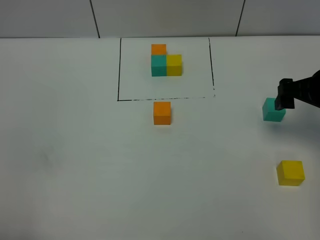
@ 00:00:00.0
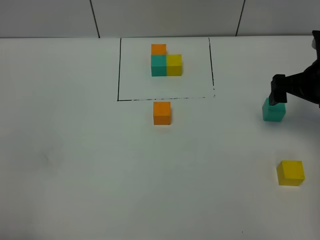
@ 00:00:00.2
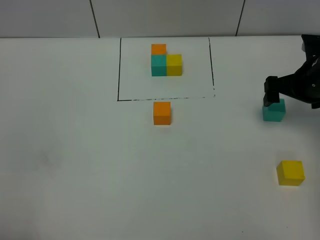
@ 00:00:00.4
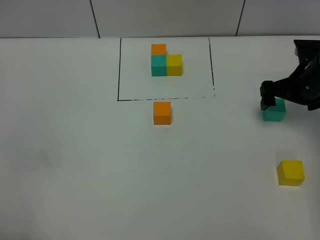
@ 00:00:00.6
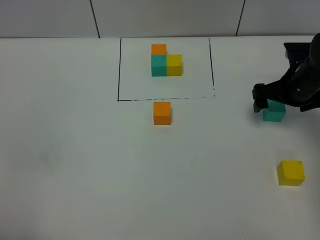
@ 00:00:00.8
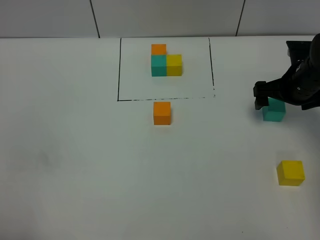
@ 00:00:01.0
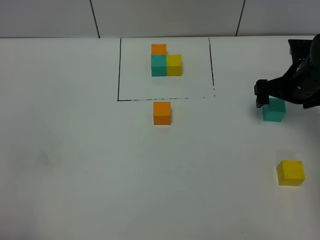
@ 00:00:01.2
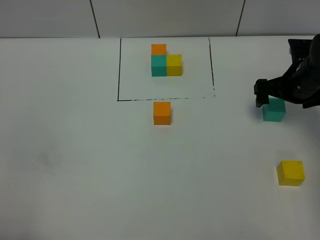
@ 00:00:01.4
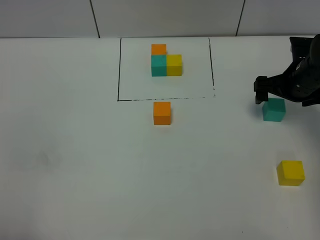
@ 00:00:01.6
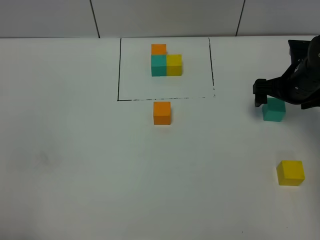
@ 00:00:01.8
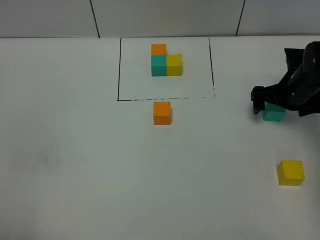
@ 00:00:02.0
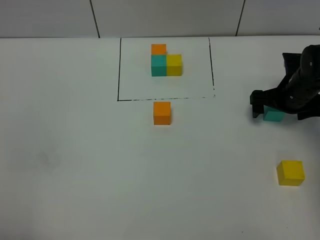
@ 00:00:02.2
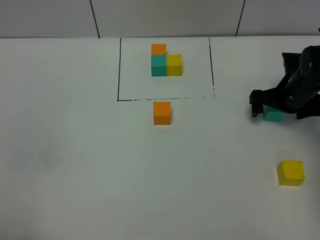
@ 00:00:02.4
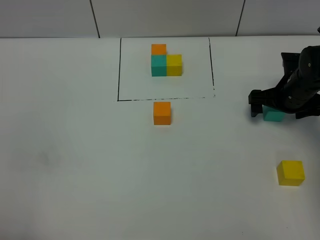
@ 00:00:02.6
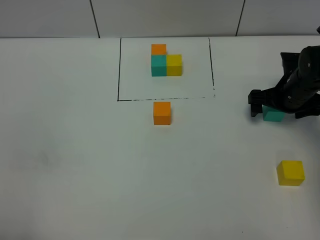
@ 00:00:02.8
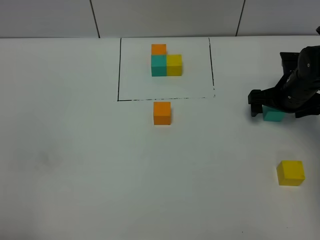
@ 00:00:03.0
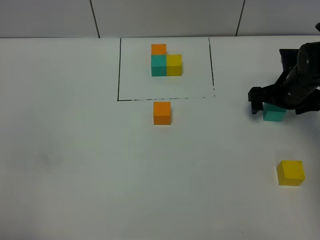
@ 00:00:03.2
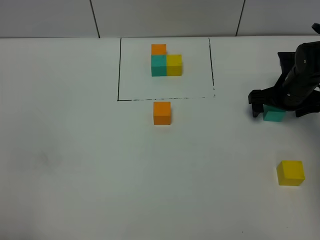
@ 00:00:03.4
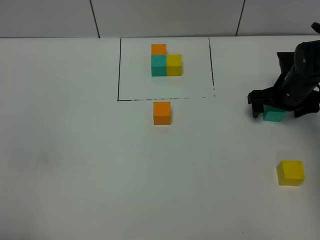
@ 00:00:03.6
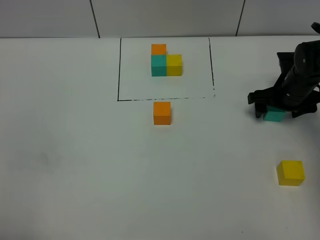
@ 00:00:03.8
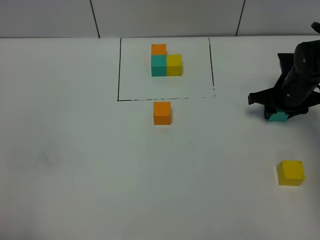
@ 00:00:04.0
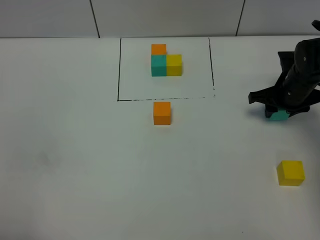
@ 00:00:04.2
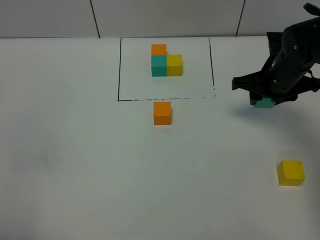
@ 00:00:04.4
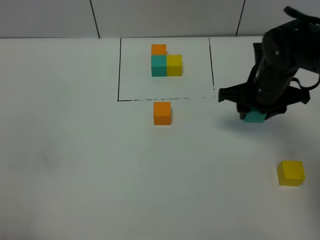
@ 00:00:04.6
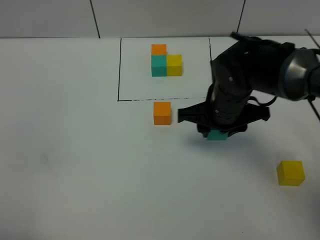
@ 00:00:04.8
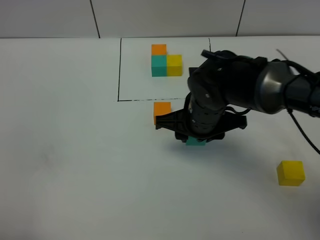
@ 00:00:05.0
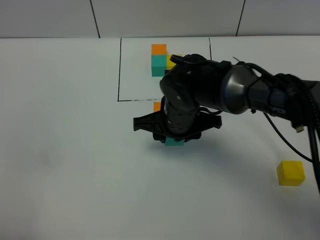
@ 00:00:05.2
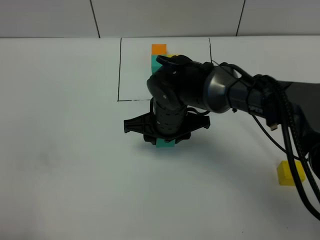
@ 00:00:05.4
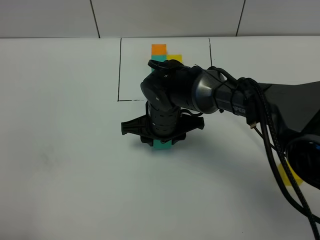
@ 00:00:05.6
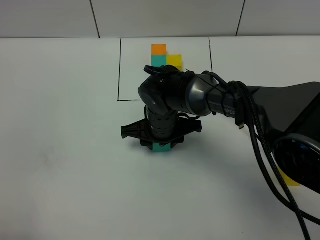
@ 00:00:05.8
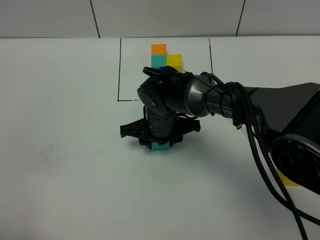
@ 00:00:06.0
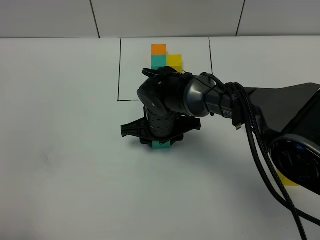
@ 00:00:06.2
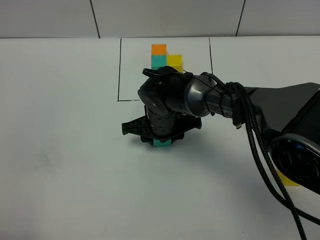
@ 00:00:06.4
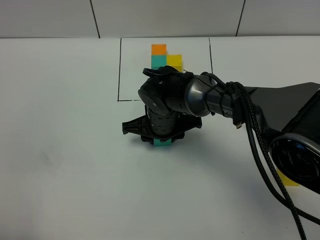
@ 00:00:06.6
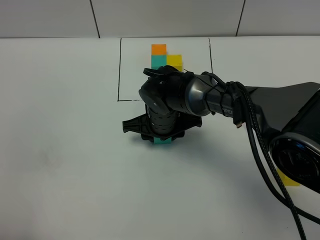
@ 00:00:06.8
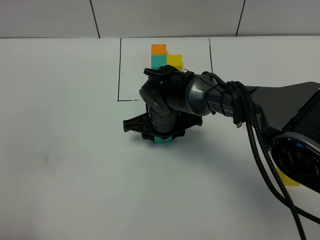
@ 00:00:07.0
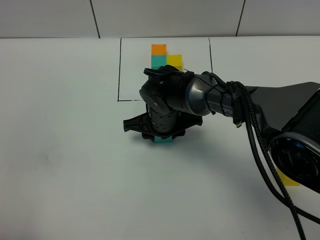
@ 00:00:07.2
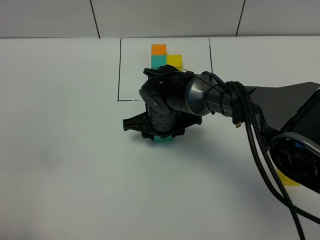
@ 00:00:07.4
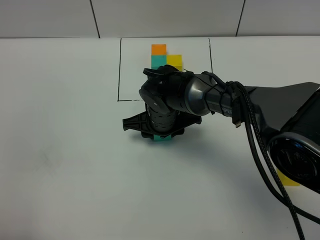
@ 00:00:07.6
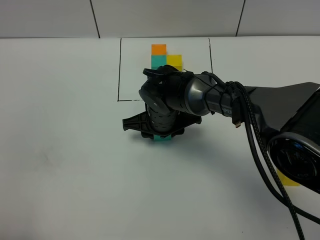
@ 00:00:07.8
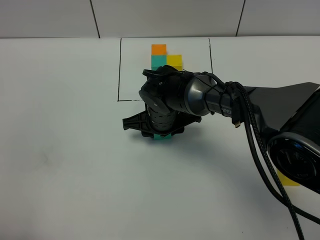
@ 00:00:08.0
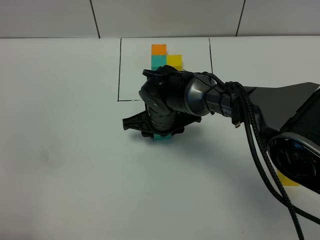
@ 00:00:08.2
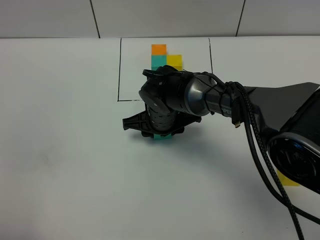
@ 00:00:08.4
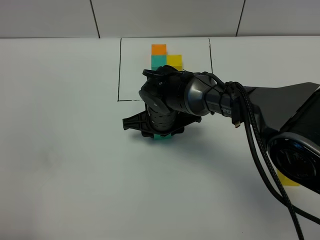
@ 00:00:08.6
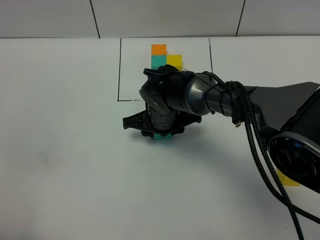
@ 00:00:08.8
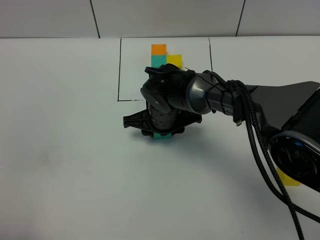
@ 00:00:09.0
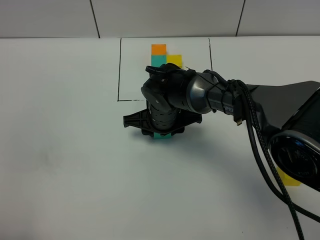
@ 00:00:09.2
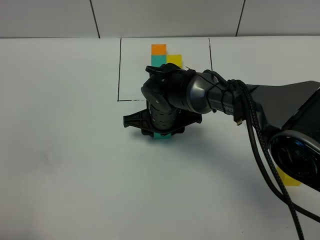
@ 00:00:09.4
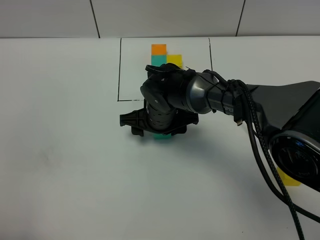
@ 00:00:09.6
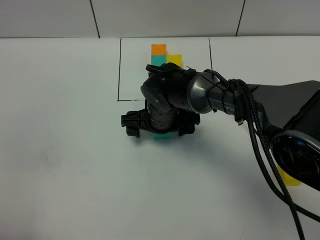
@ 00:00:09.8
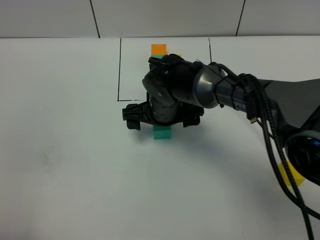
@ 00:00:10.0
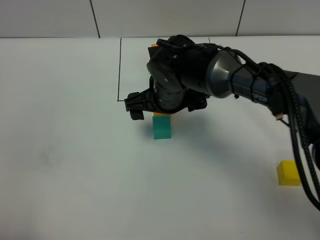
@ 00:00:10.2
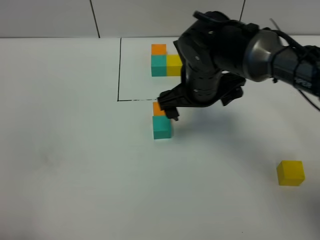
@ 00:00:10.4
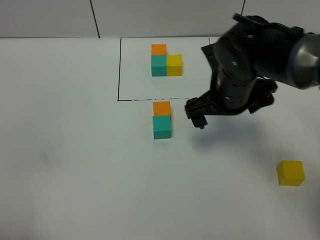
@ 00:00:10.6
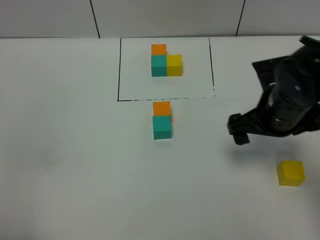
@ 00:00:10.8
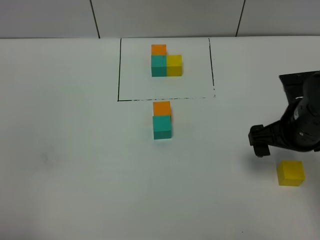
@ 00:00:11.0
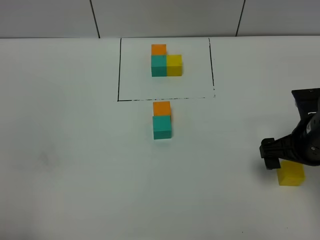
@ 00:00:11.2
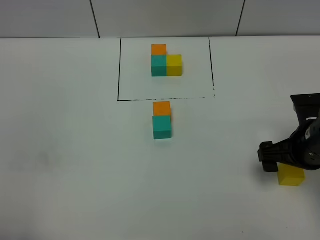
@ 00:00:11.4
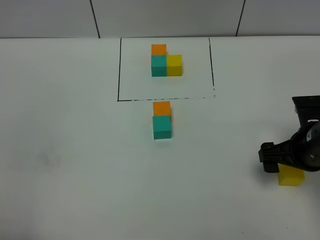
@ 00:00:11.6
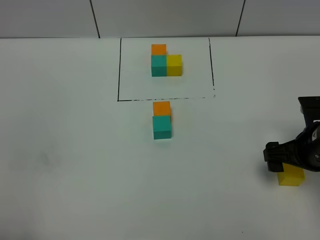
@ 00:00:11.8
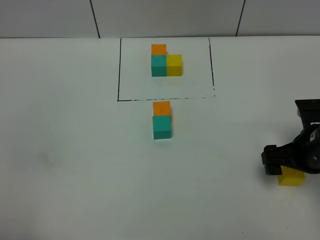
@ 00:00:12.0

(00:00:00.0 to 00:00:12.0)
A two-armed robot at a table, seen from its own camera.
Task of the whole recording: According to the building block template in front, assemble the scattered blocks together.
Step, 00:00:00.0 - 00:00:09.4: Put the green build block on the behind of the orange build block.
00:00:00.0 - 00:00:01.6: The right gripper travels forward and downward by about 10 cm.
00:00:01.6 - 00:00:03.0: The grippers stay close to where they were, moving slightly.
00:00:03.0 - 00:00:04.4: The right gripper moves upward and to the left, some 10 cm, and closes.
00:00:04.4 - 00:00:06.0: The right gripper travels to the left by some 20 cm.
00:00:06.0 - 00:00:07.6: Both grippers stay put.
00:00:07.6 - 00:00:09.0: The two grippers keep their place.
00:00:09.0 - 00:00:10.4: The right gripper travels upward and to the right by roughly 15 cm, and opens.
00:00:10.4 - 00:00:12.0: The right gripper heads to the right and backward, covering approximately 20 cm.

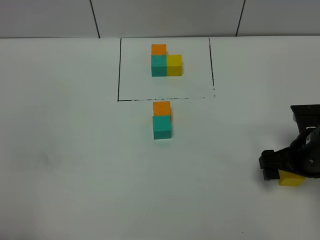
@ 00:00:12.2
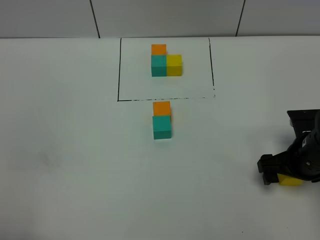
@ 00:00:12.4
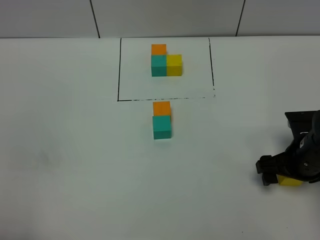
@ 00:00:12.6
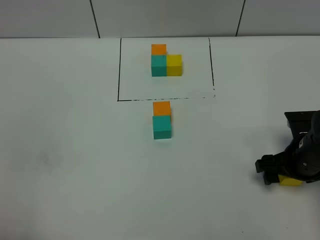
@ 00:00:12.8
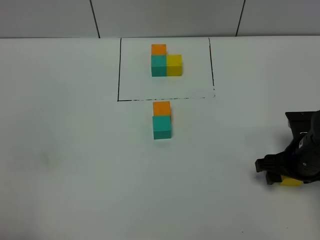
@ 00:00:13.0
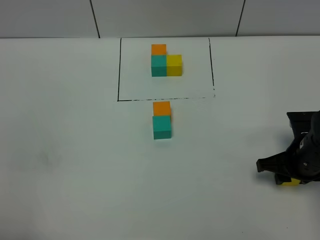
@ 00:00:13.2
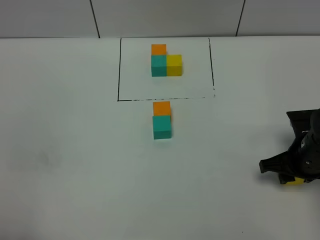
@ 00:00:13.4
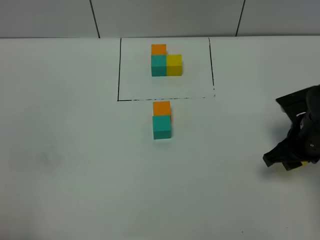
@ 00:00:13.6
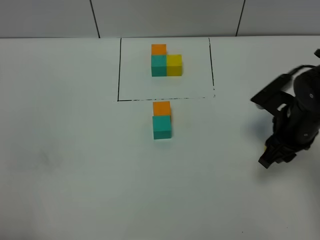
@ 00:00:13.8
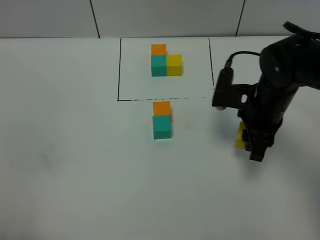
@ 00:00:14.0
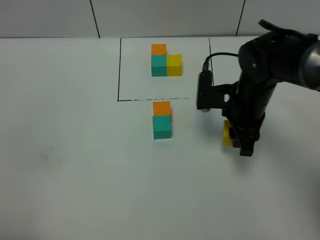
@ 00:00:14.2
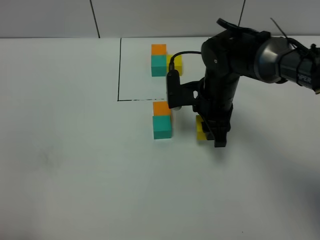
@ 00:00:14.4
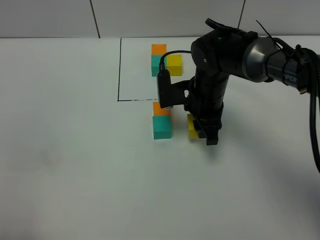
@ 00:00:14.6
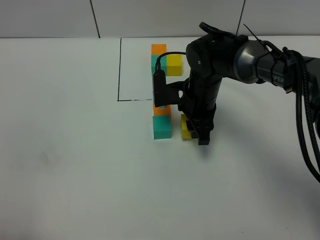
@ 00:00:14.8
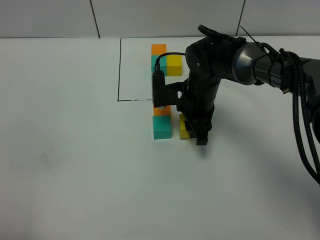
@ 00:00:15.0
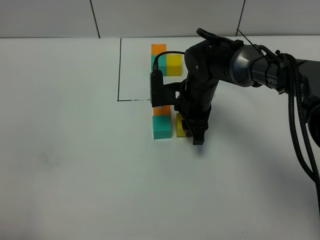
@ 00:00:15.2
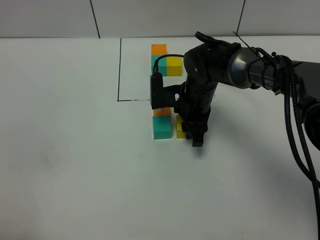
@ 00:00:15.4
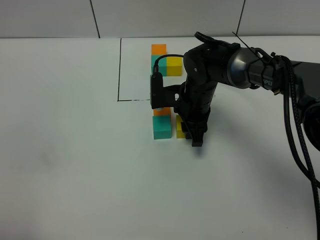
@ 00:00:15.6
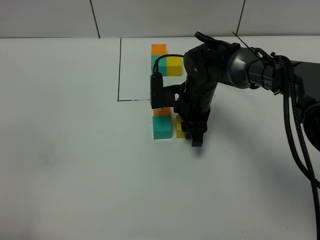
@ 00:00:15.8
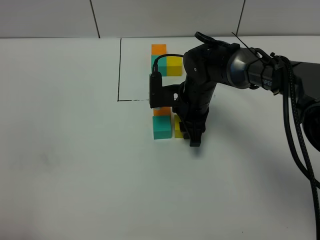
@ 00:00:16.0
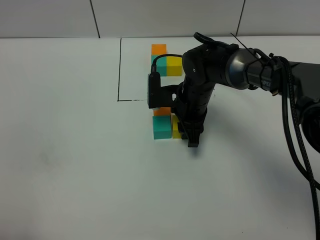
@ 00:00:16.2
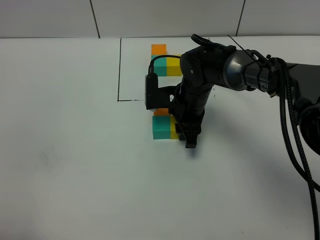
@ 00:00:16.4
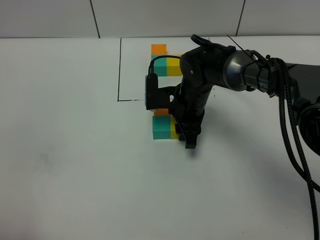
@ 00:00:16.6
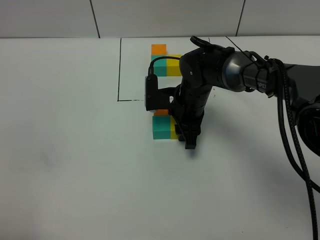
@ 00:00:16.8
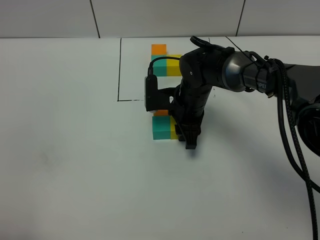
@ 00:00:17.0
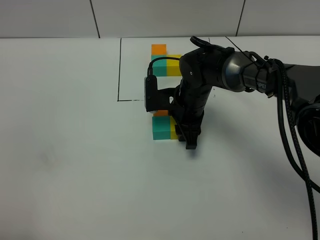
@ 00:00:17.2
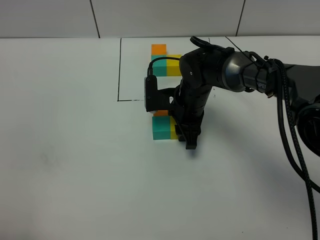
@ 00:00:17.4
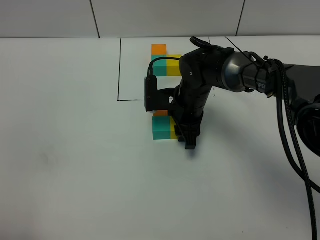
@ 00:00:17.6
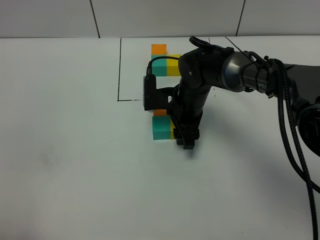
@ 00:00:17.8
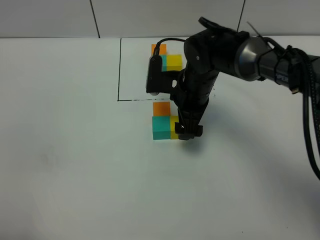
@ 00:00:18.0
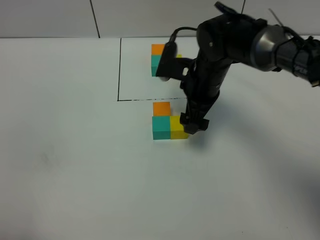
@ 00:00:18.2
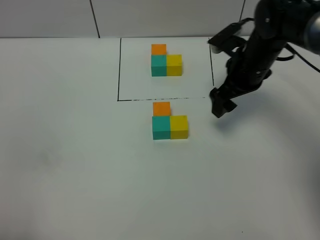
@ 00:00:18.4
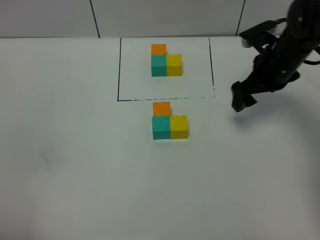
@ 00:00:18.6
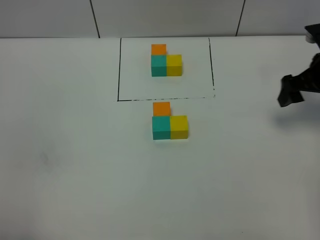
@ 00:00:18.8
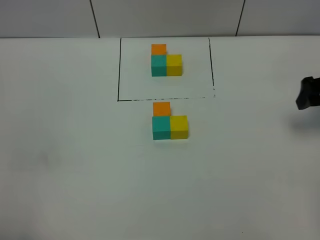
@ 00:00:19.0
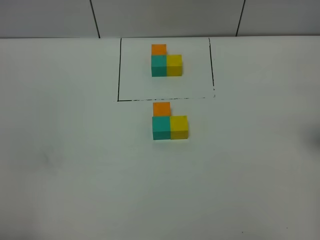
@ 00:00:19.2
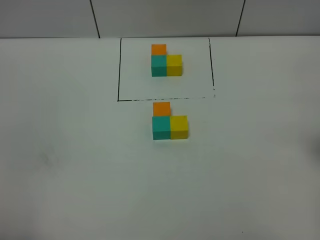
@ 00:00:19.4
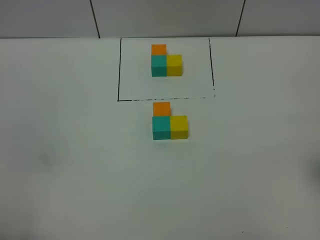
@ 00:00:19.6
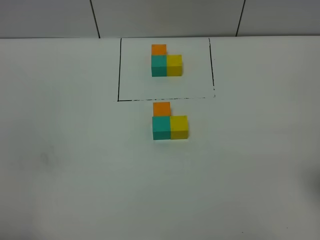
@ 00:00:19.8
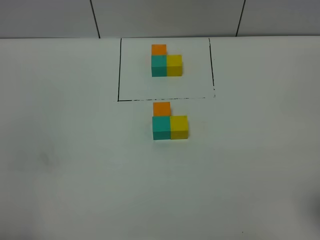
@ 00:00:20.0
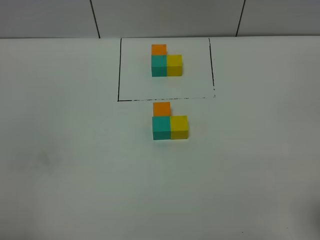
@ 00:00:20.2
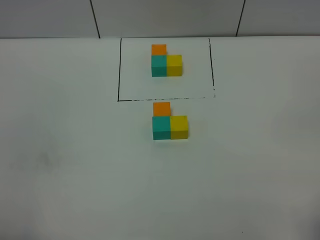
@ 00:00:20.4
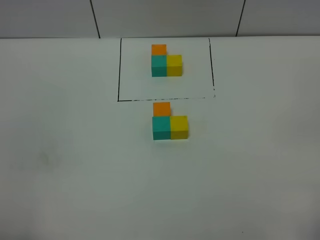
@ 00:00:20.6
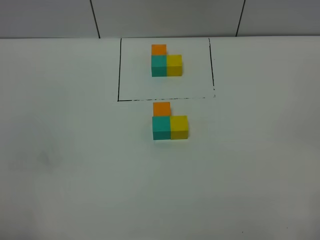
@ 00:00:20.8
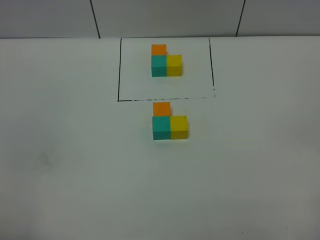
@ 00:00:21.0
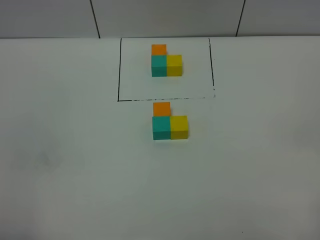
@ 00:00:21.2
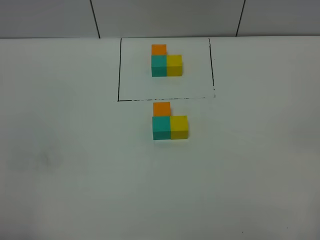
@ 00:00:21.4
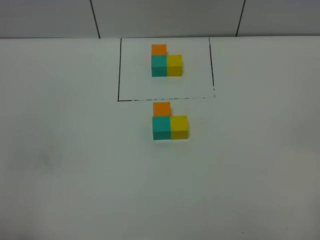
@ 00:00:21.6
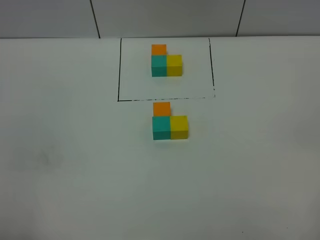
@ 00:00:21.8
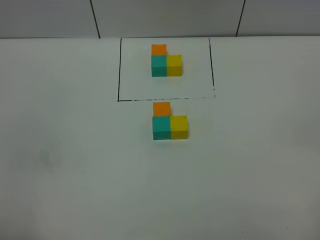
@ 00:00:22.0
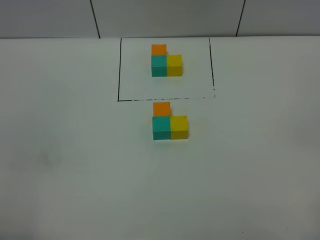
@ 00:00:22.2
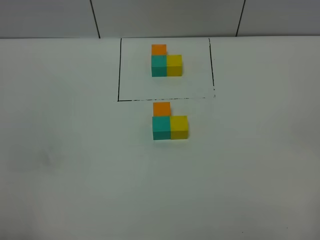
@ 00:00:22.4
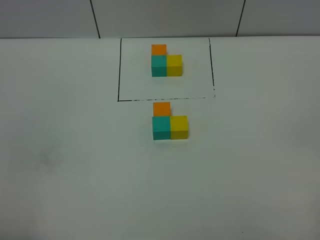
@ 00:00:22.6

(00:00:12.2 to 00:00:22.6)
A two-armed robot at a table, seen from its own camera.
Task of the whole recording: According to the building block template in front, assemble the scattered blocks together.
Step, 00:00:12.2 - 00:00:17.6: Put the yellow build block on the right of the green build block.
00:00:12.2 - 00:00:13.6: The right gripper closes up.
00:00:13.6 - 00:00:15.2: The right gripper heads to the left and forward, covering approximately 20 cm.
00:00:15.2 - 00:00:16.6: The grippers make only small movements.
00:00:16.6 - 00:00:18.2: The right gripper heads upward, covering approximately 5 cm, and opens its fingers.
00:00:18.2 - 00:00:19.6: The right gripper moves to the right and backward, some 30 cm.
00:00:21.2 - 00:00:22.6: Both grippers stay put.
